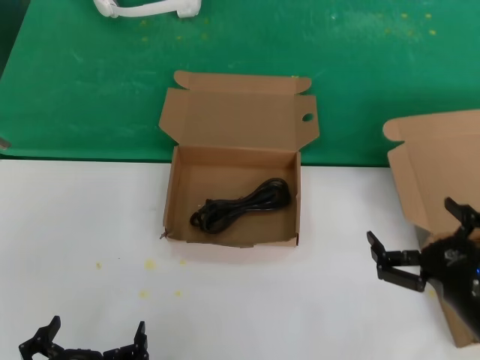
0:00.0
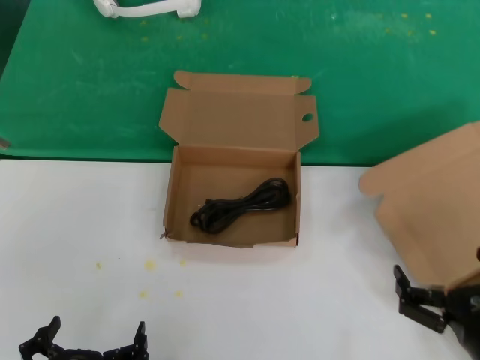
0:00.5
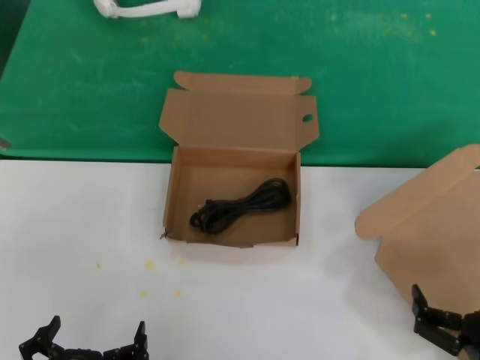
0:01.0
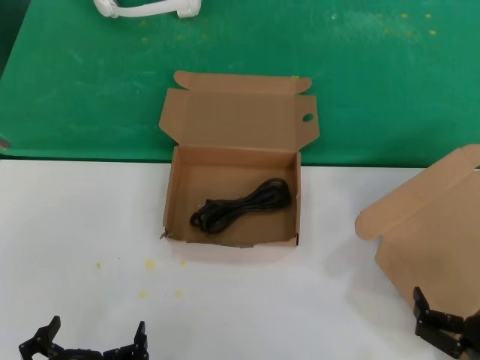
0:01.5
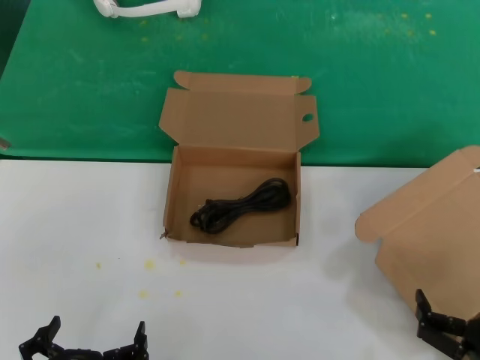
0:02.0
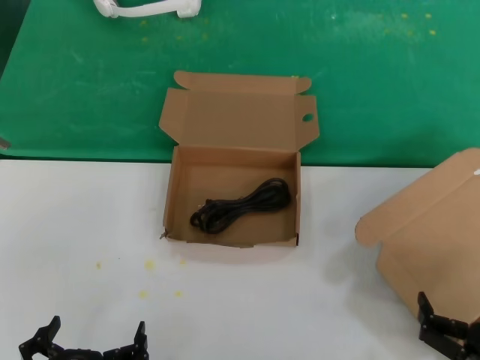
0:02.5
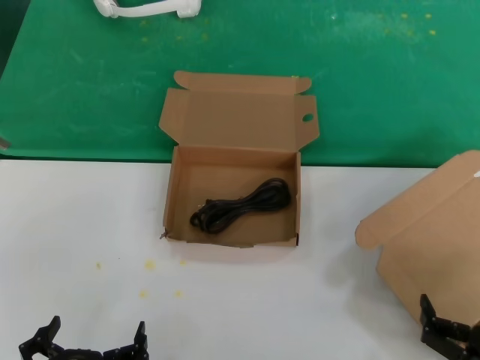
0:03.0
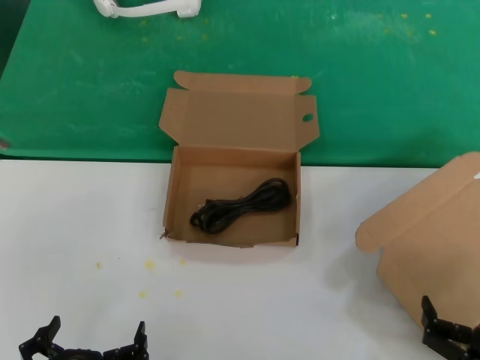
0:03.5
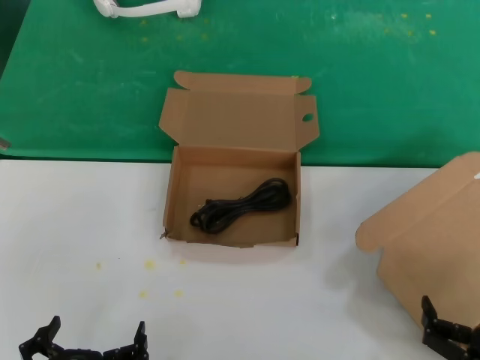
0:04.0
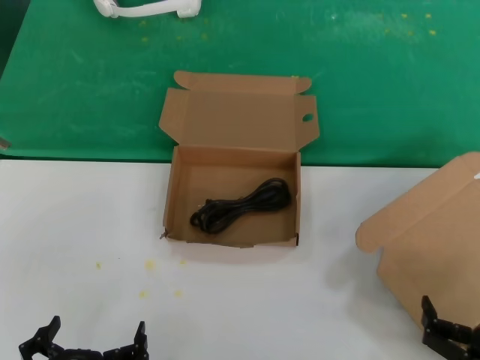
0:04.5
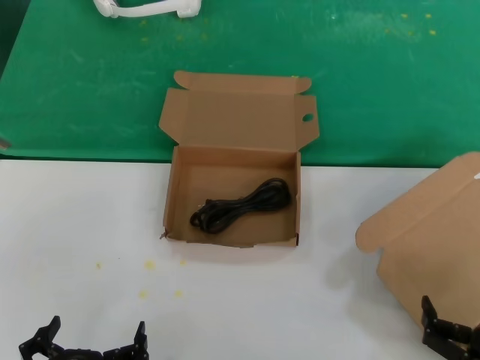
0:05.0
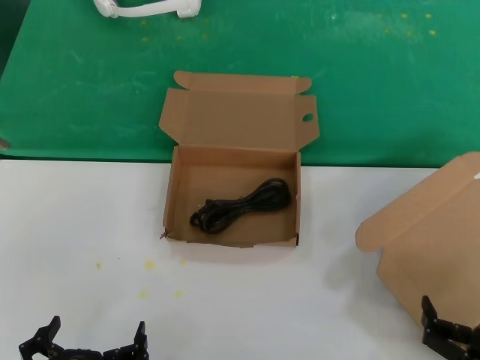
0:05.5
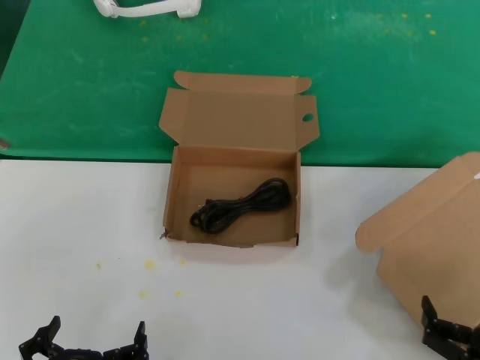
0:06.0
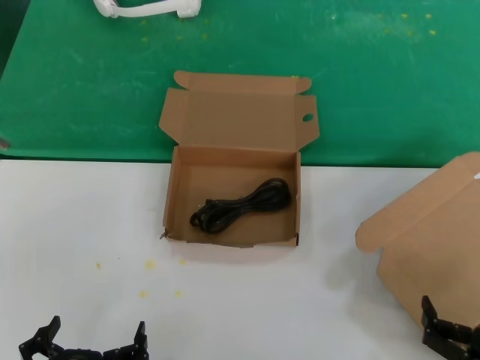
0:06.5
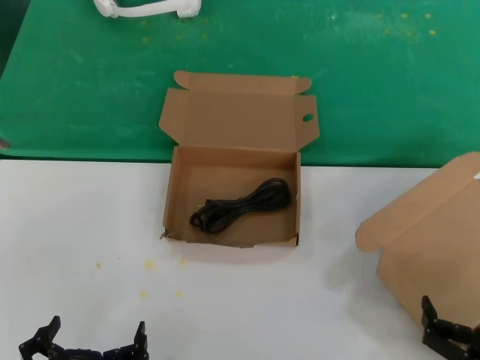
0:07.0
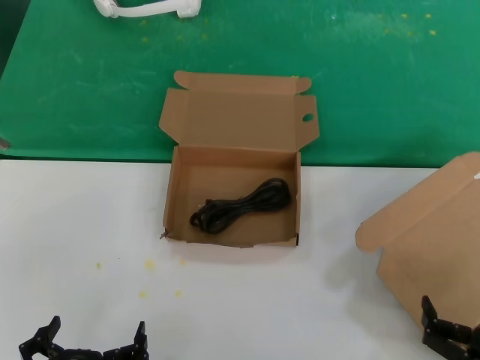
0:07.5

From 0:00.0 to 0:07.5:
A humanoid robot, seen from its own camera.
Task of the whole recording: take the parts from the box containing them and put them into an empty box.
From 0:00.0 to 0:02.0: The right hand goes roughly 10 cm backward and downward.
From 0:02.0 to 0:07.5: Both hands stay about where they are.
